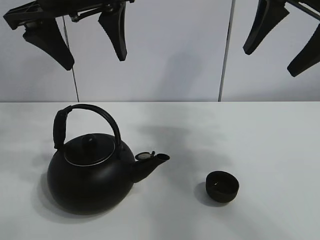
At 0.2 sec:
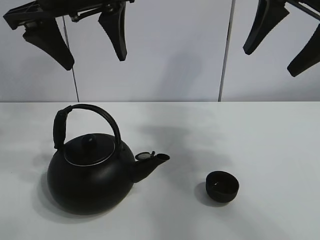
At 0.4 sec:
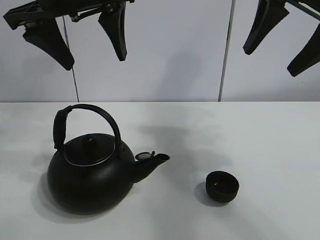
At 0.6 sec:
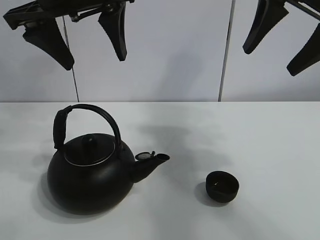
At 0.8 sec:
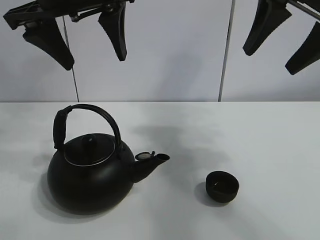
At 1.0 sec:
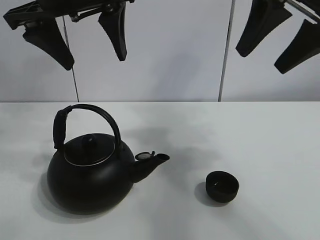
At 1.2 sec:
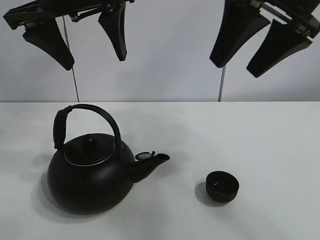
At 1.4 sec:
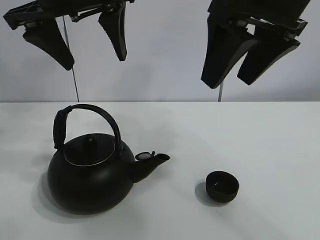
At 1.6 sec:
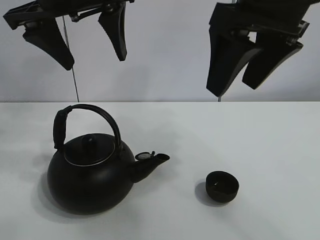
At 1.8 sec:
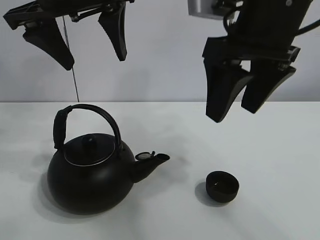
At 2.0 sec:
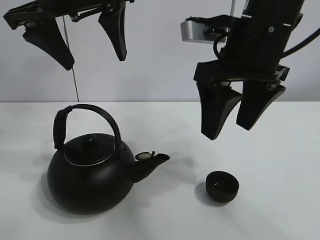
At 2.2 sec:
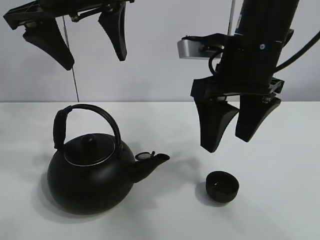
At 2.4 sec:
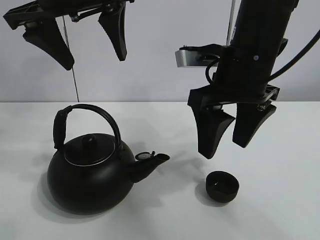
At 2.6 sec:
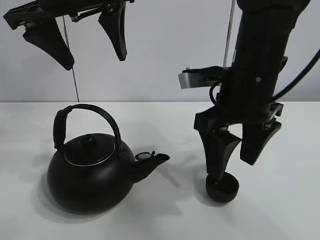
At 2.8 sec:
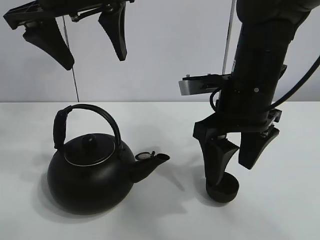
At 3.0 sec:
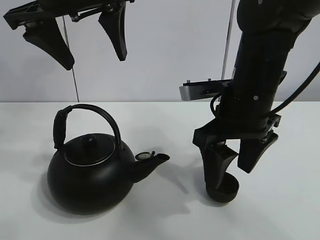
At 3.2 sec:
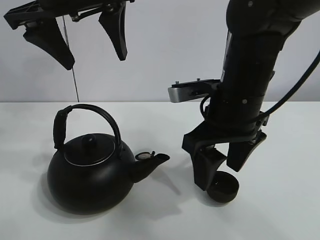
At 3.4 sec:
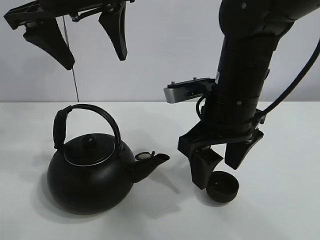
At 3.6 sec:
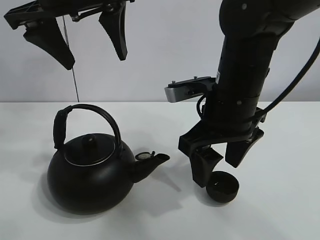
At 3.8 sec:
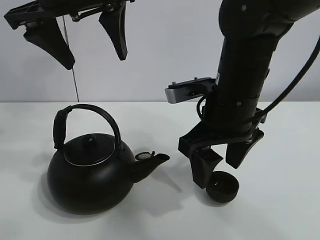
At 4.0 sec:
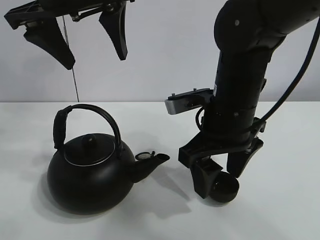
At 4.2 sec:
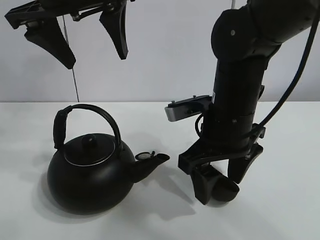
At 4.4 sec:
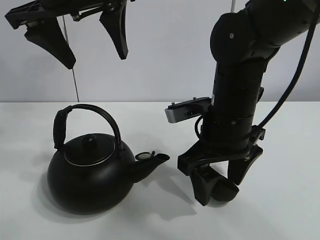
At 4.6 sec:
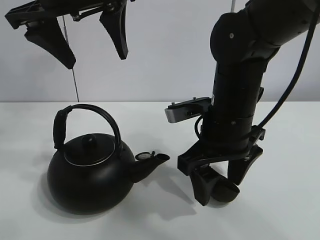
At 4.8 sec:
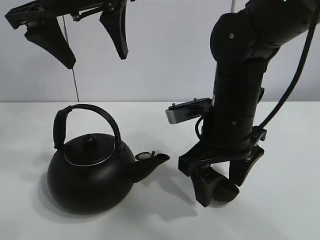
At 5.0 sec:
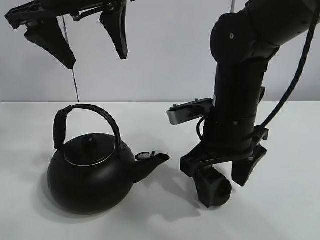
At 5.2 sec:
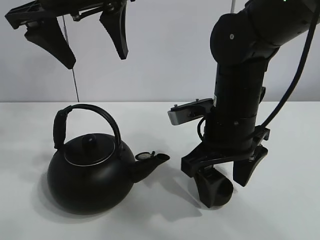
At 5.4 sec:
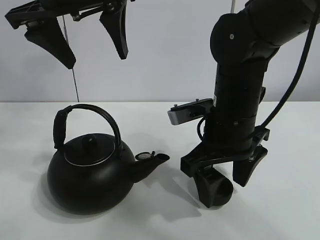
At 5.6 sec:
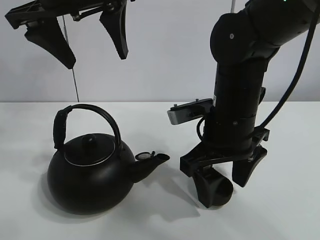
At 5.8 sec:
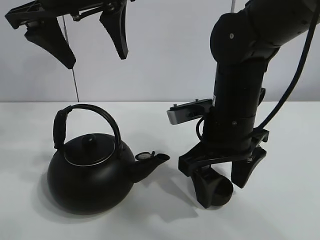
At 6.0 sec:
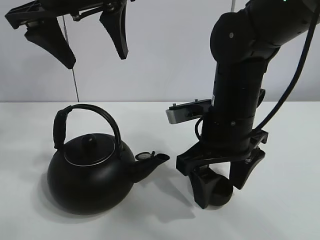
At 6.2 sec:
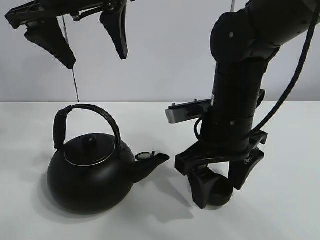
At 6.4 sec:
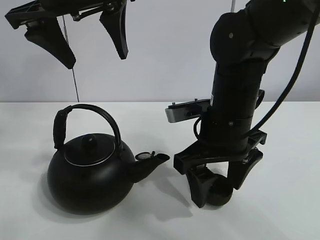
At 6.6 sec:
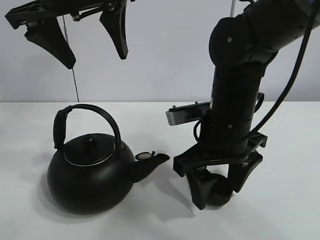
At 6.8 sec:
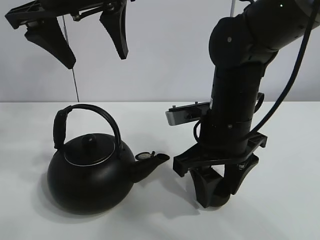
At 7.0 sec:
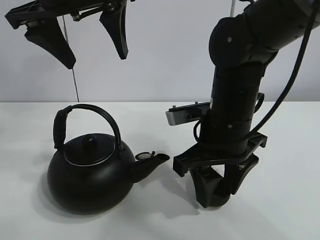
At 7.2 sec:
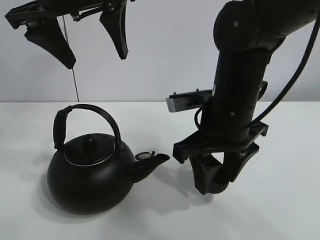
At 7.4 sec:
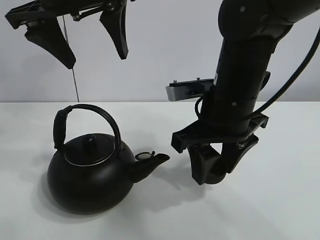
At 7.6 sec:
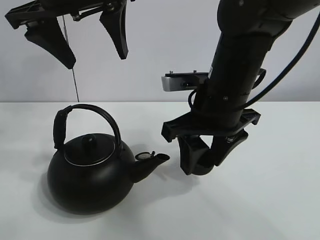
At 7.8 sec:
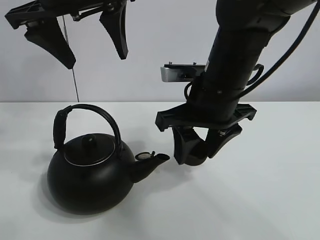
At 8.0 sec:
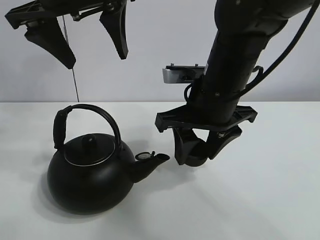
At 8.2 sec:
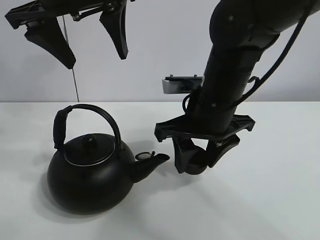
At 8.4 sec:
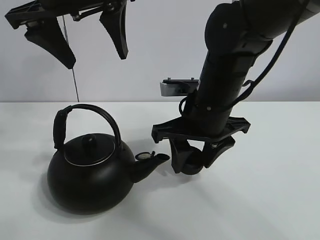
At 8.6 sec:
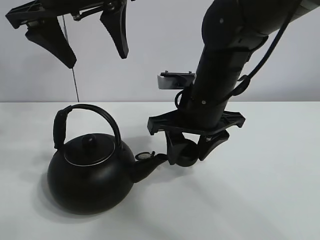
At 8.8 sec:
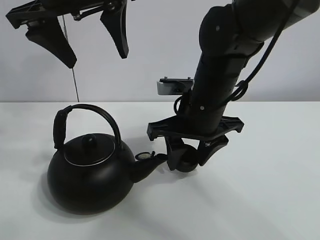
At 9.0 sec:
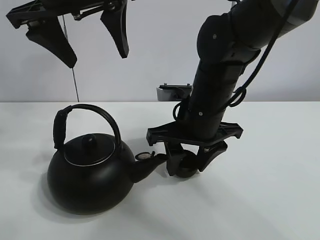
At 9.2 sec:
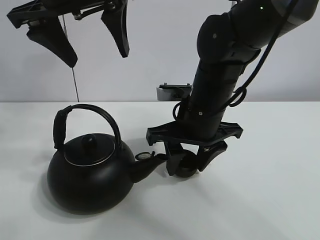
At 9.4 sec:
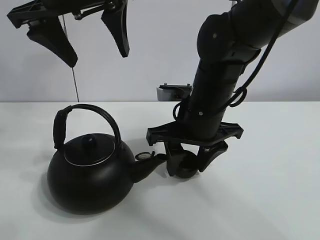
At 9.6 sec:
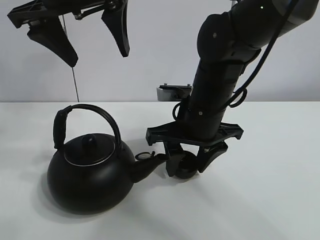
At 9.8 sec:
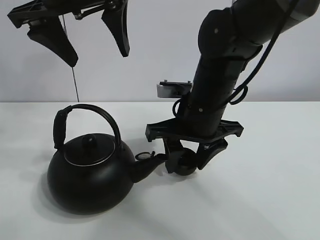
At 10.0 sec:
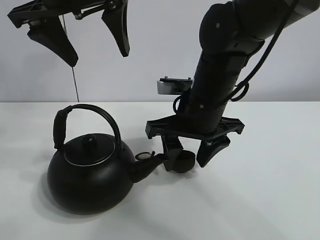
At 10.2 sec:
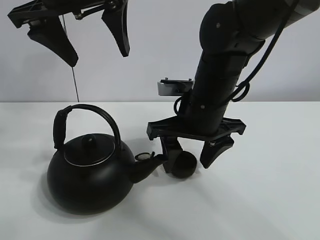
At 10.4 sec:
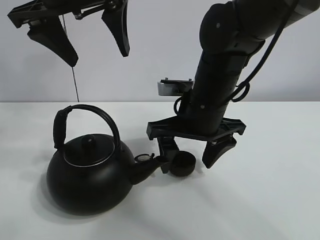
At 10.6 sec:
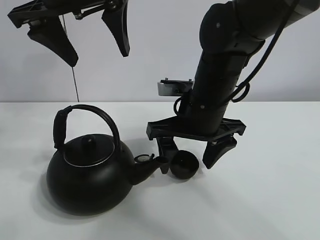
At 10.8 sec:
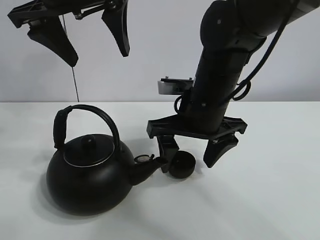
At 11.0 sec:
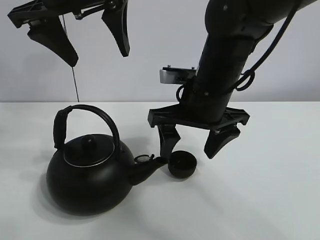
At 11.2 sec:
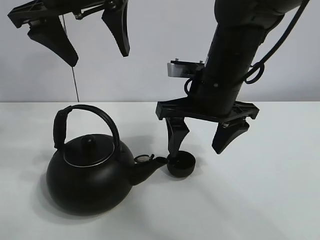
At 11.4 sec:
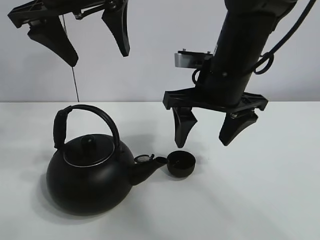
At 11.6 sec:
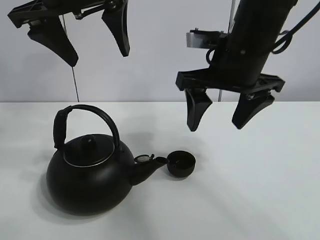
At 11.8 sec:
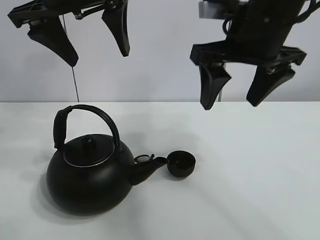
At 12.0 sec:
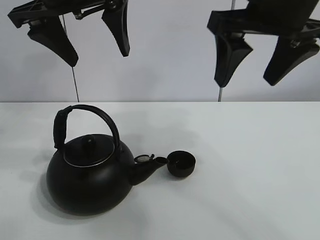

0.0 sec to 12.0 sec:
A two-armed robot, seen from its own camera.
Task of the whole recording: pour tea into the teacup.
Step, 0.0 sec to 6.8 sec: Pick up the teacup with the right gripper.
Step, 7.0 sec to 10.8 sec: Place the teacup in the center of view with the right gripper.
1.6 sec to 3.0 sec: The right gripper goes some 15 cm downward.
3.0 sec to 4.4 sec: There are only small adjustments of the grippers.
4.4 sec to 6.0 sec: Neither gripper changes place.
6.0 sec to 7.6 sec: The right gripper closes its fingers.
7.6 sec to 9.0 sec: The right gripper changes place by about 5 cm.
9.0 sec to 10.4 sec: The right gripper opens its fingers.
10.4 sec to 12.0 sec: The right gripper shifts approximately 15 cm upward and to the right.

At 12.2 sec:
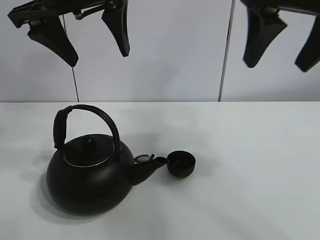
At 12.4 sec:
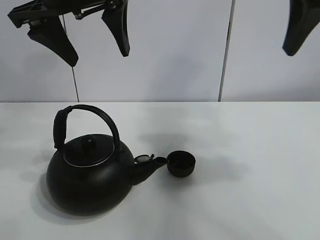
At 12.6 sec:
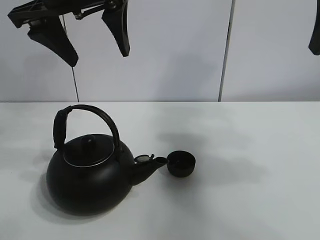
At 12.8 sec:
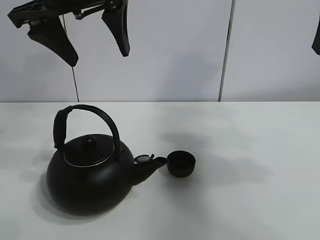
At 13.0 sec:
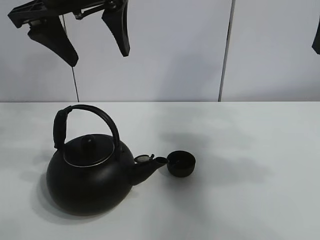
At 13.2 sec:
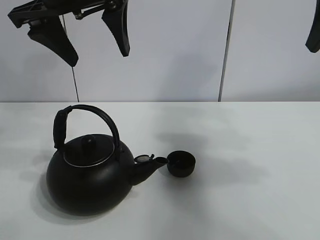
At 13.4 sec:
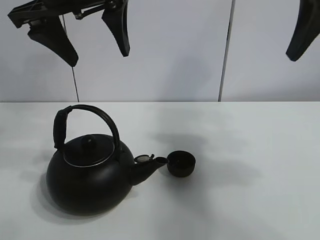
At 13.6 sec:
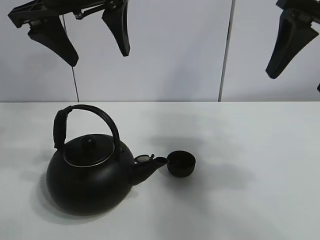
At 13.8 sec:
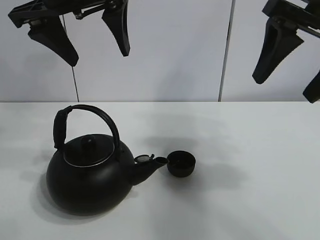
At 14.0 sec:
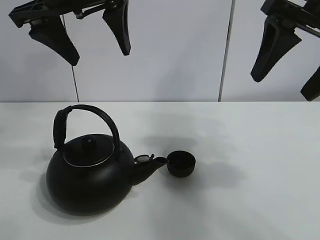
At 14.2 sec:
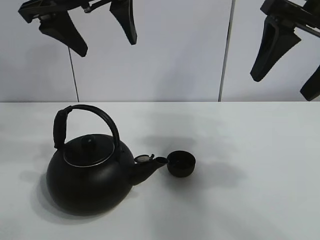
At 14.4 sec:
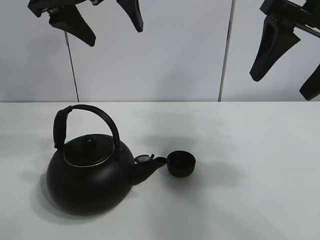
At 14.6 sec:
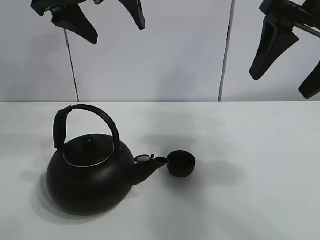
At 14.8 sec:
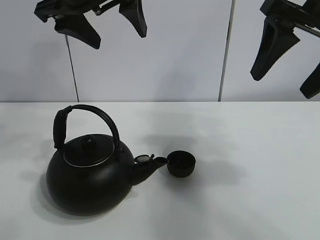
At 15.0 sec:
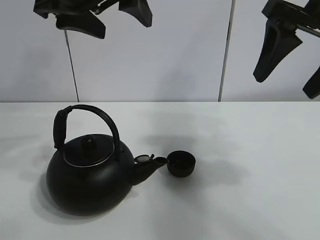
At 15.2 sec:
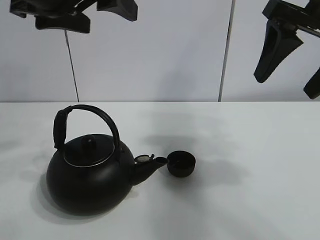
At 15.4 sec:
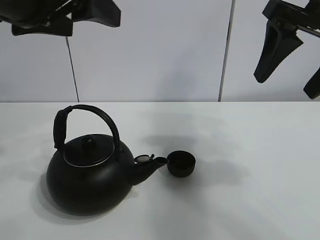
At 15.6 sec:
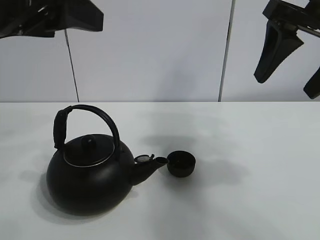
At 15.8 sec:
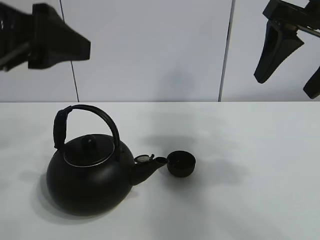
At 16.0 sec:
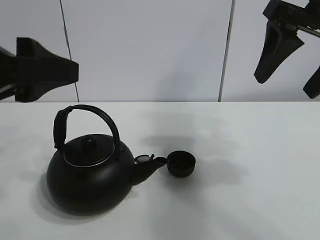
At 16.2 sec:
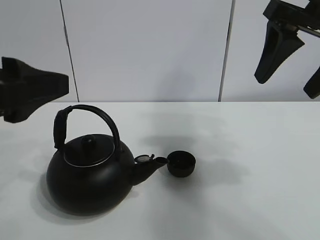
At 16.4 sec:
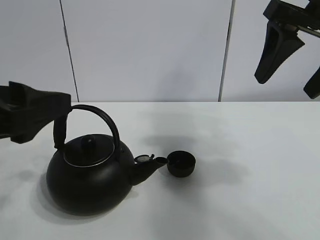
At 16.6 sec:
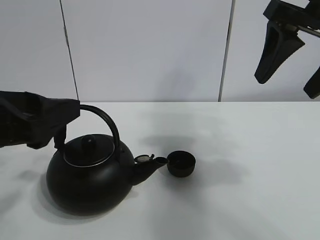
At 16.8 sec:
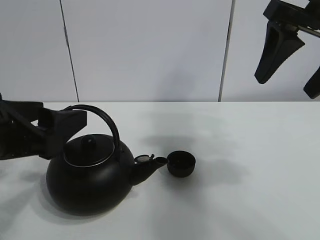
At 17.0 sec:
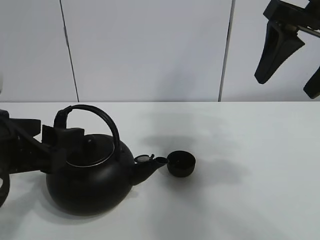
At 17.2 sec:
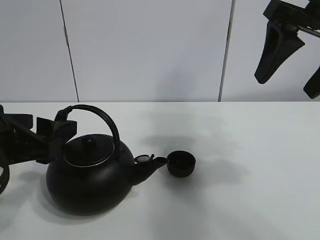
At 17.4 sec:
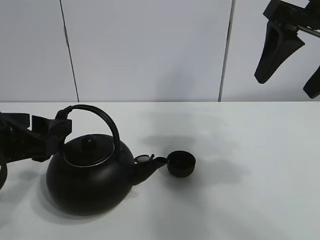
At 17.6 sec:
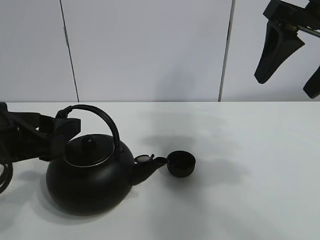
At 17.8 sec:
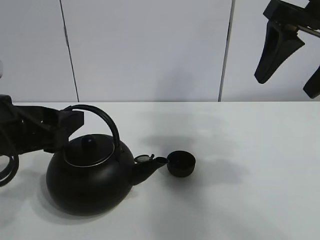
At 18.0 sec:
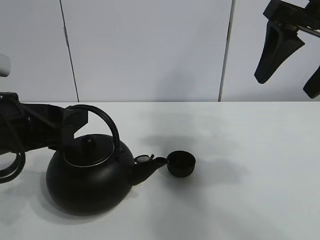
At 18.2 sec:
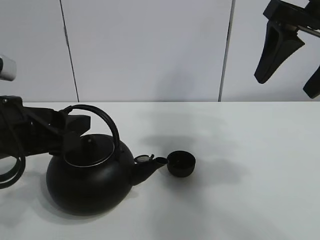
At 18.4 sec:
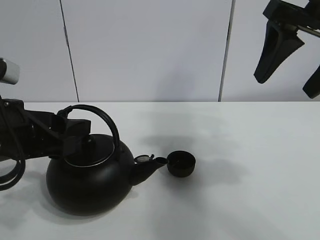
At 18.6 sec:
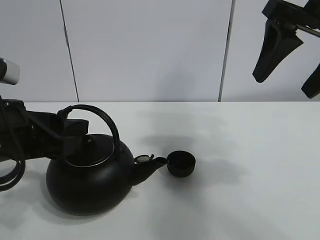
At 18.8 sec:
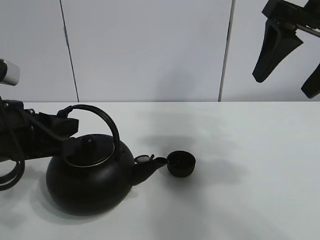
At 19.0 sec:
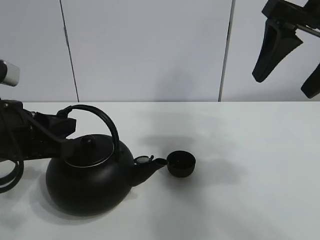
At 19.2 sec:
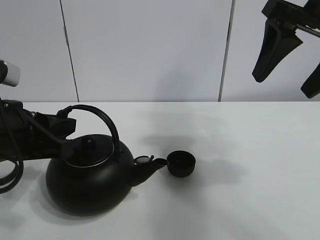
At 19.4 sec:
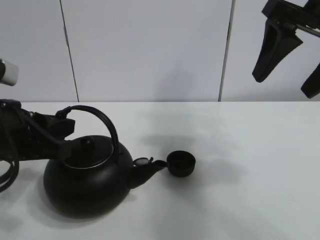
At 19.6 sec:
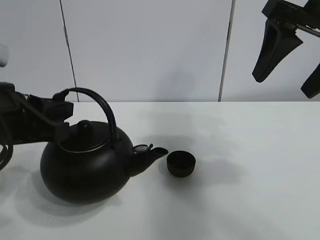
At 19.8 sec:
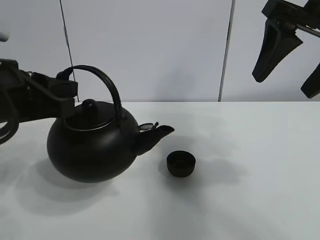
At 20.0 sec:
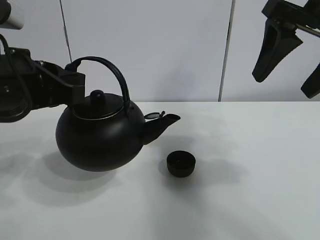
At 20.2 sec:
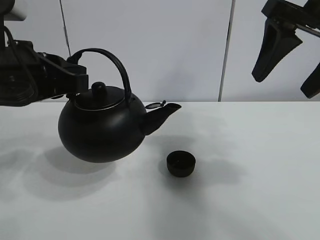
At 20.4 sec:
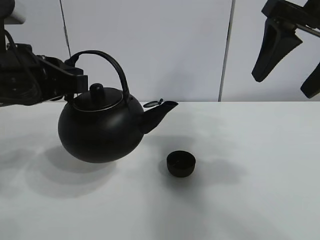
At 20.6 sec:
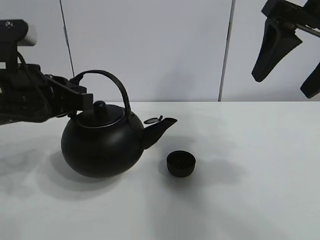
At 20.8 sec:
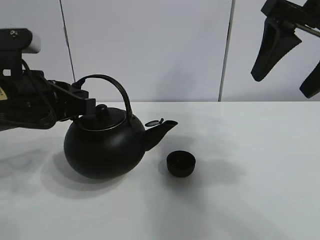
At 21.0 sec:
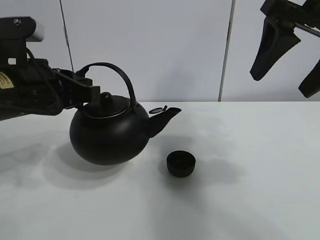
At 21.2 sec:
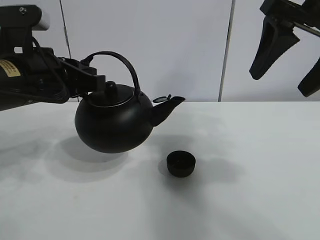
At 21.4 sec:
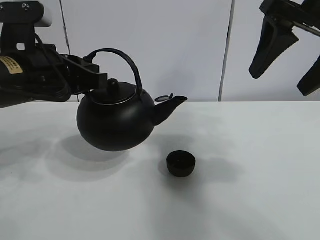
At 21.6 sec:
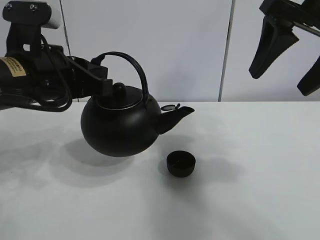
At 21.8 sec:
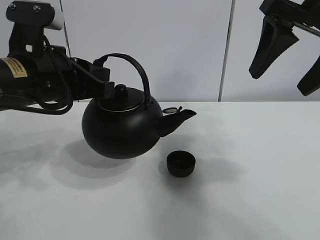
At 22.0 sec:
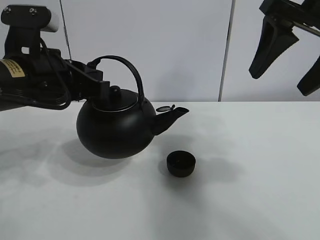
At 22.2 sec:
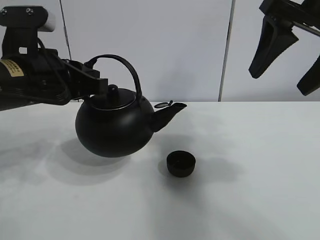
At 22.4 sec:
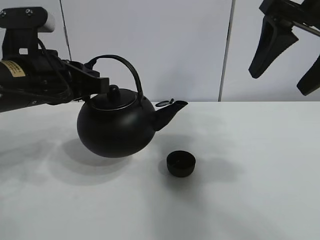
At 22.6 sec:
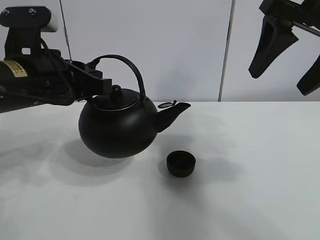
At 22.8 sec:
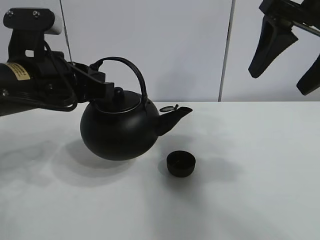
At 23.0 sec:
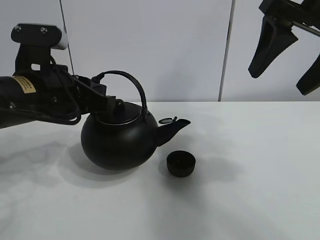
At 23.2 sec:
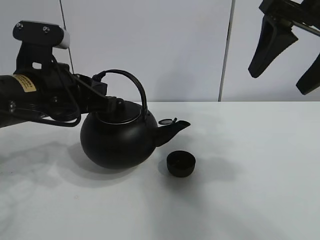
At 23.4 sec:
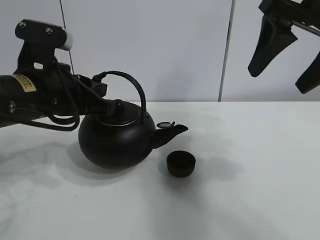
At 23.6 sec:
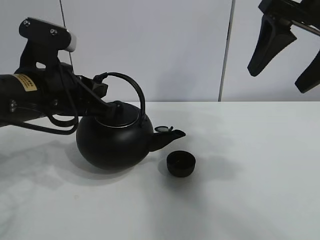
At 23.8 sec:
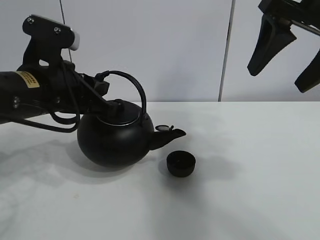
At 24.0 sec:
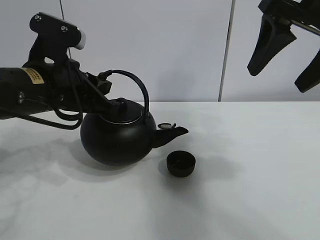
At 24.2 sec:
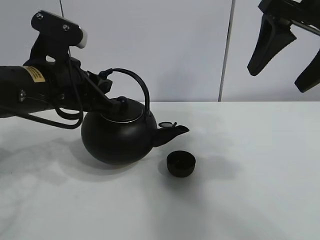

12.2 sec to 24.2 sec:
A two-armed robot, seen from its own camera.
Task of the whole recording: pour tea into the teacup.
Step, 12.2 sec to 19.2 sec: Pick up the teapot with the left gripper.
15.2 sec to 16.6 sec: The left gripper heads downward, backward and to the left, covering roughly 20 cm.
16.6 sec to 18.2 sec: The left gripper changes place by approximately 5 cm.
18.2 sec to 19.8 sec: The left gripper closes its fingers.
19.8 sec to 21.2 sec: The left gripper heads forward, covering approximately 5 cm.
21.2 sec to 24.2 sec: The grippers move only a little.
